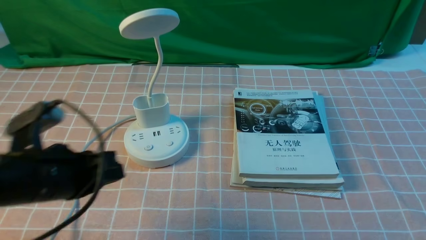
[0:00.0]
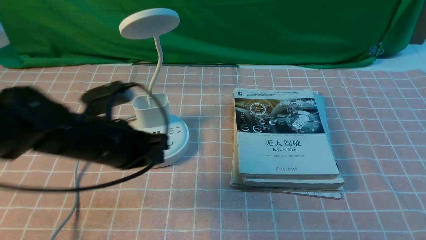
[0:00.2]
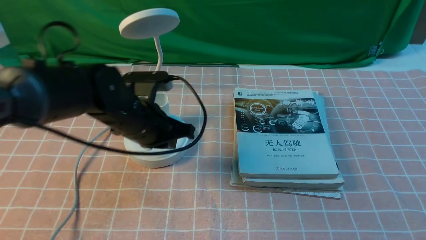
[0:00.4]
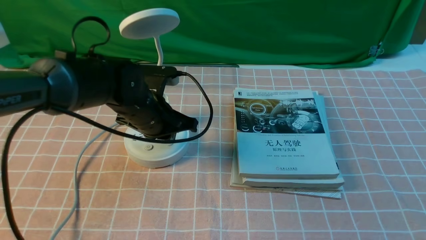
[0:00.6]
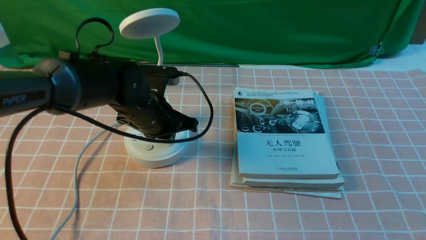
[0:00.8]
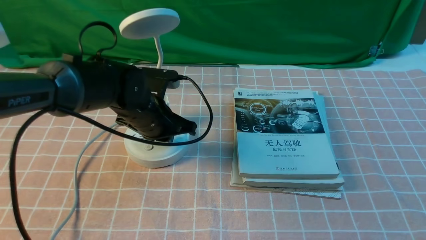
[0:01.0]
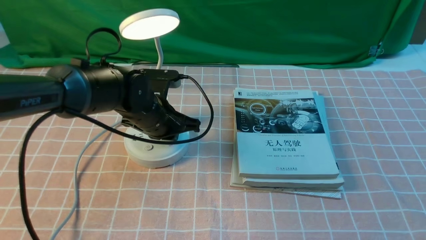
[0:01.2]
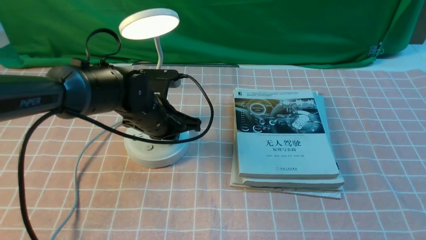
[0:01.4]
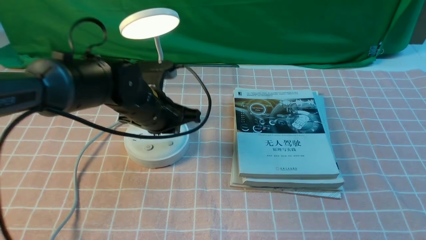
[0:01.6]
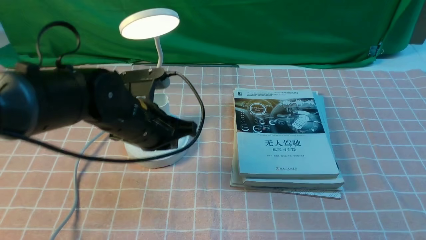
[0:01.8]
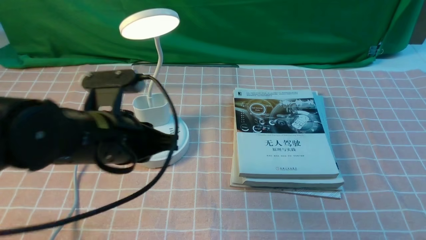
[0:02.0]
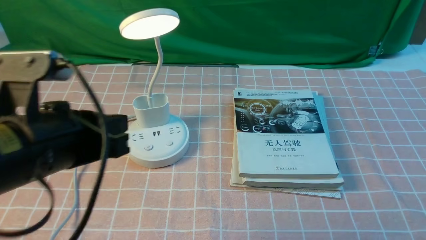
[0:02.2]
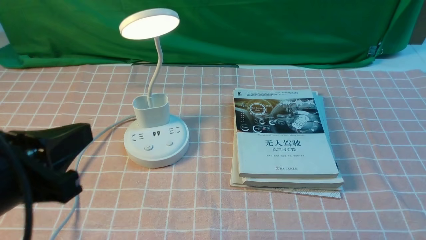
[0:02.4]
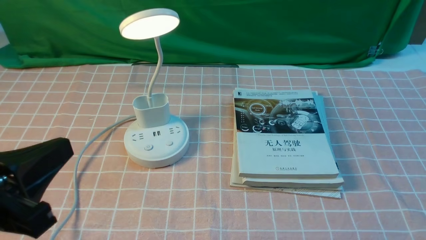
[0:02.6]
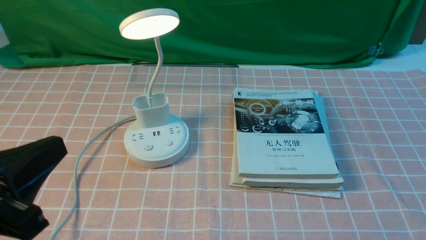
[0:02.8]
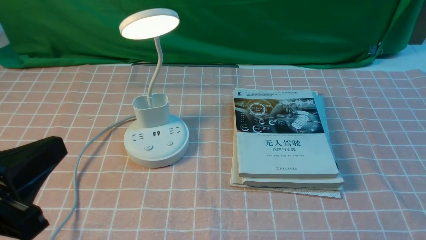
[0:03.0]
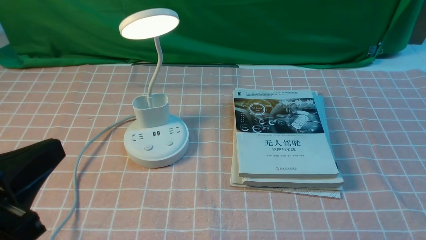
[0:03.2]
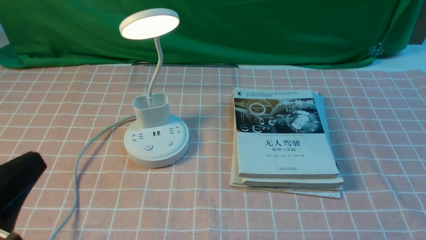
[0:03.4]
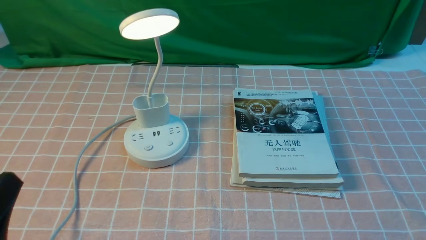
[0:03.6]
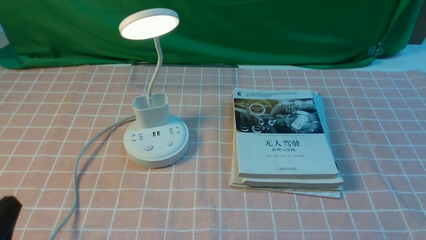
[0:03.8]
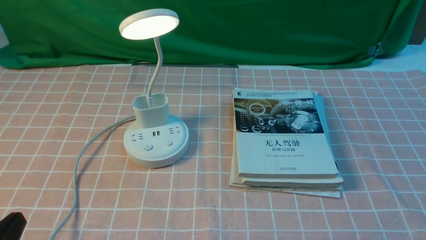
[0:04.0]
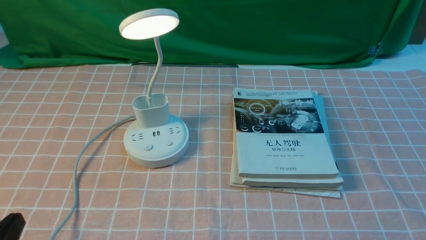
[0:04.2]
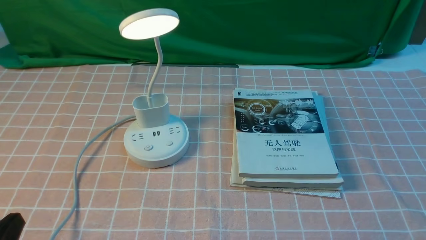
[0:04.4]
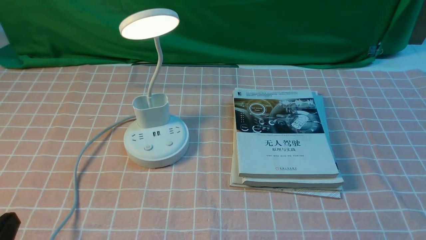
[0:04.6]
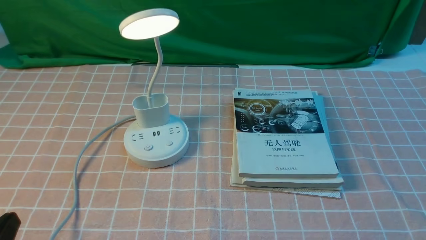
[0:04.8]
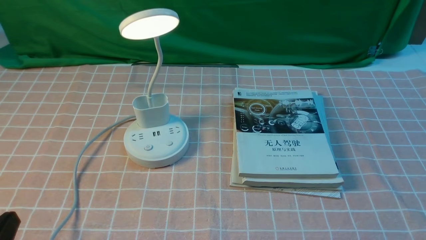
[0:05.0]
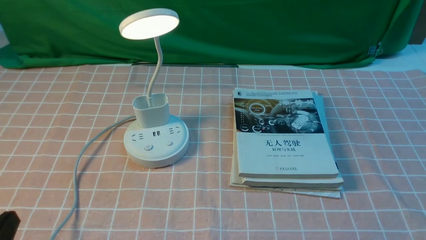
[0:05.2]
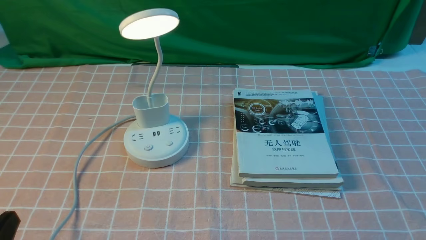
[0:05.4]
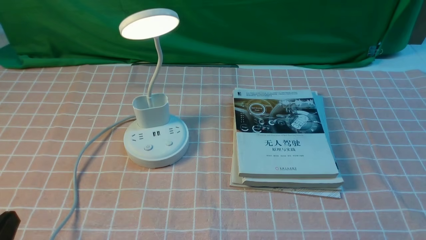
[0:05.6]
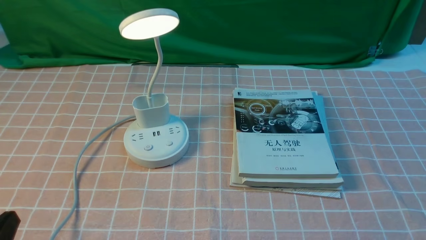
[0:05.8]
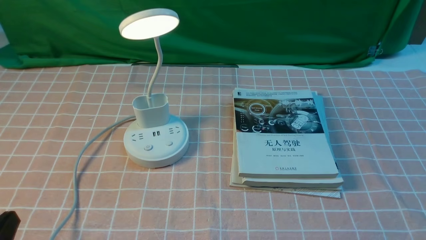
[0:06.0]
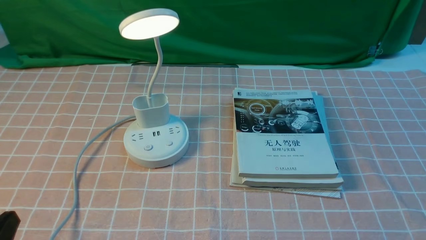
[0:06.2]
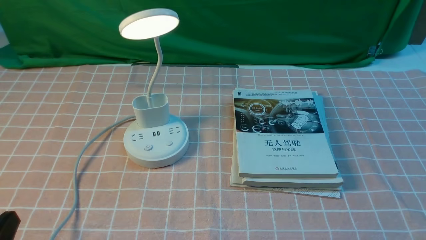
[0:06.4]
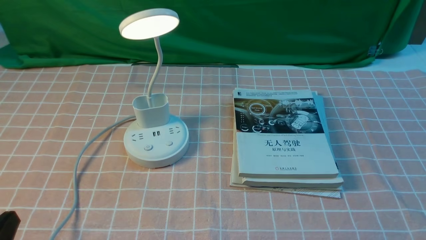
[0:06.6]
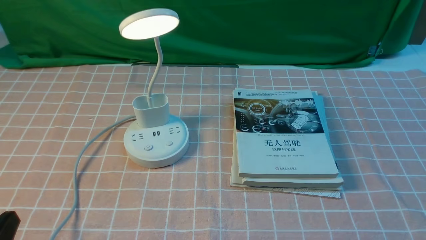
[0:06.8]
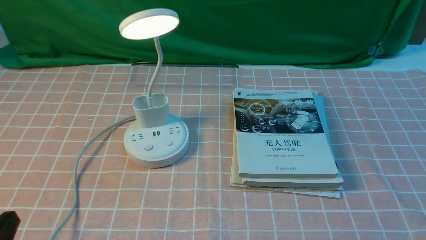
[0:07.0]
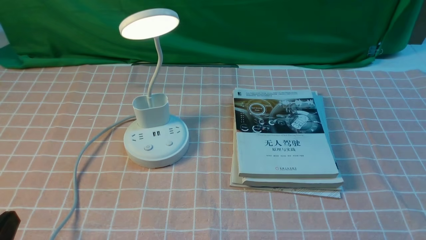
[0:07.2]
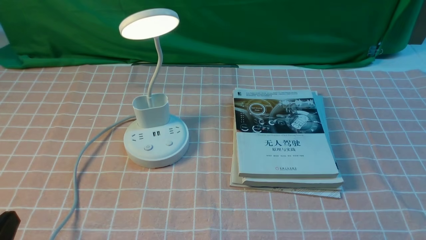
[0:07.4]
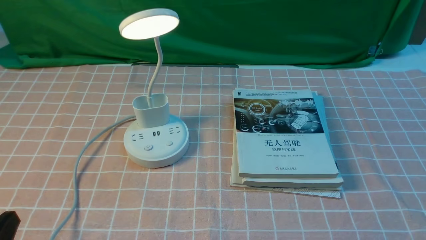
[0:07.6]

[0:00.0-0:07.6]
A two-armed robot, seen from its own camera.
0:00.0 to 0:01.6: The left gripper is displaced forward and to the right by some 15 cm.
0:01.6 to 0:03.0: The left gripper shifts some 30 cm backward and to the left.
0:03.0 to 0:04.6: The left gripper heads downward, covering approximately 10 cm.
0:04.6 to 0:07.6: Both grippers stay put.

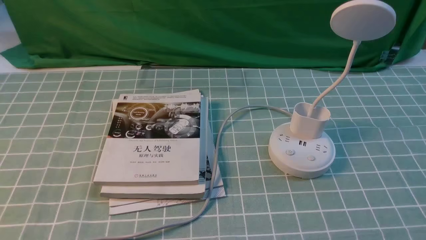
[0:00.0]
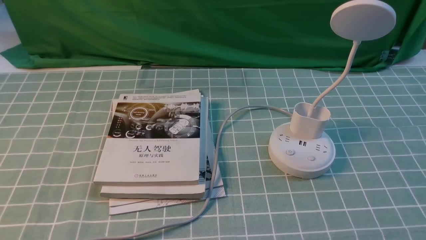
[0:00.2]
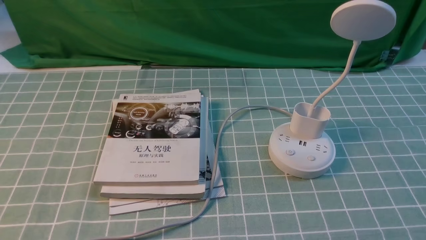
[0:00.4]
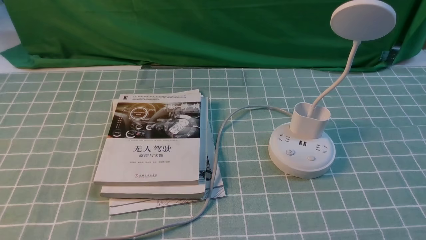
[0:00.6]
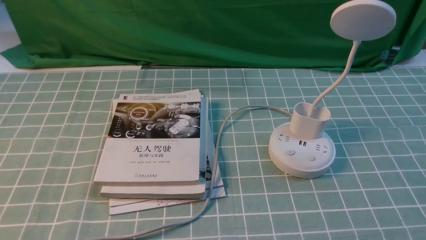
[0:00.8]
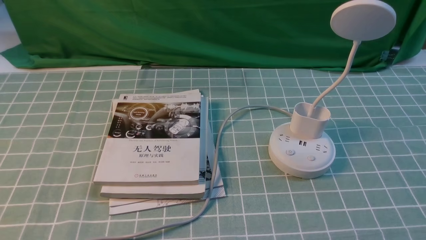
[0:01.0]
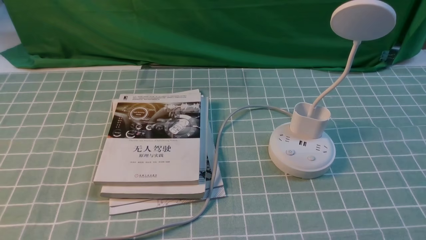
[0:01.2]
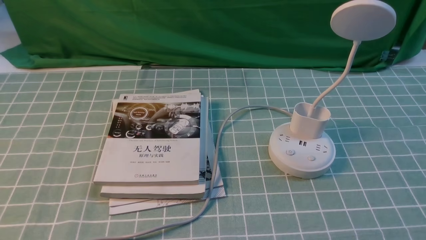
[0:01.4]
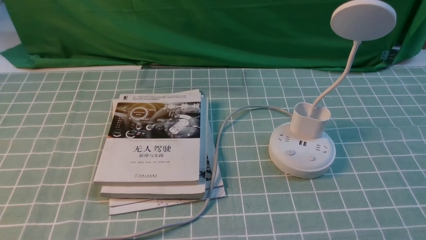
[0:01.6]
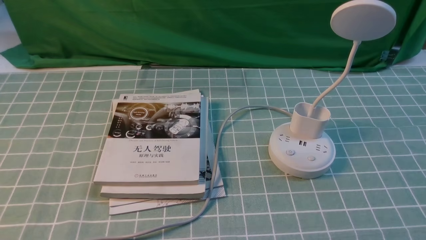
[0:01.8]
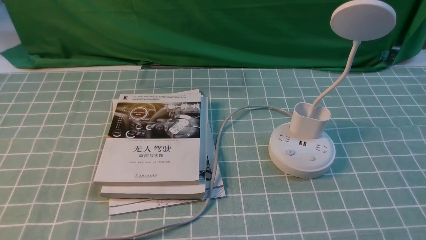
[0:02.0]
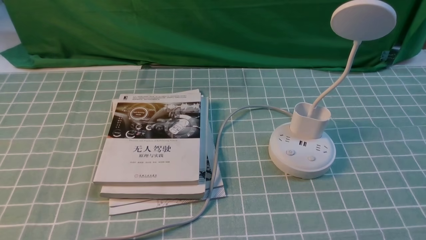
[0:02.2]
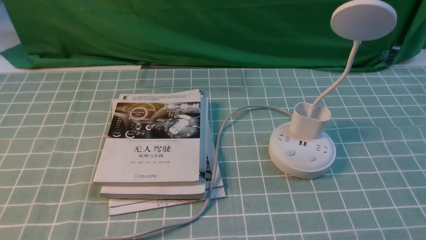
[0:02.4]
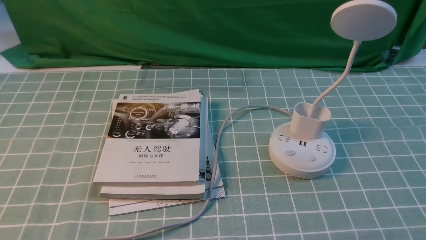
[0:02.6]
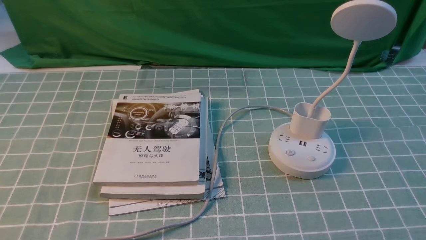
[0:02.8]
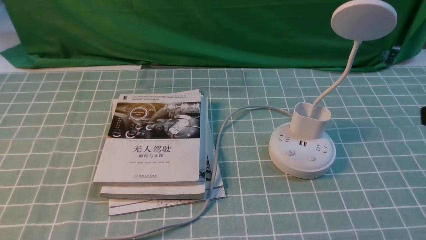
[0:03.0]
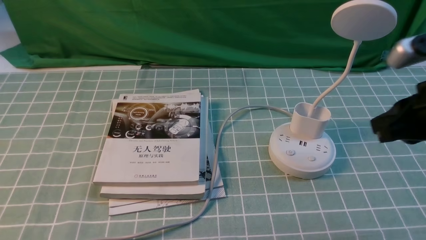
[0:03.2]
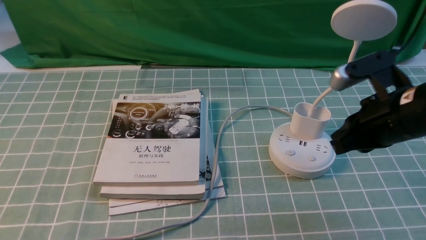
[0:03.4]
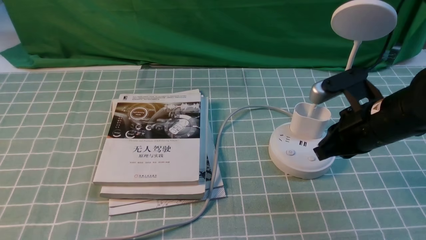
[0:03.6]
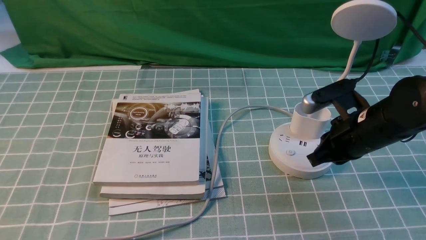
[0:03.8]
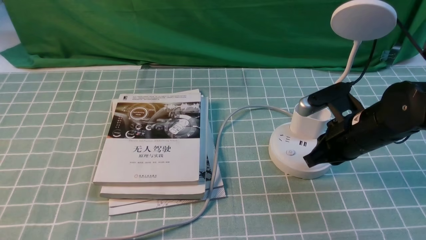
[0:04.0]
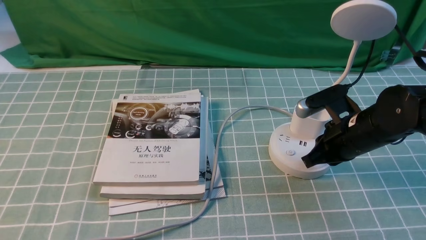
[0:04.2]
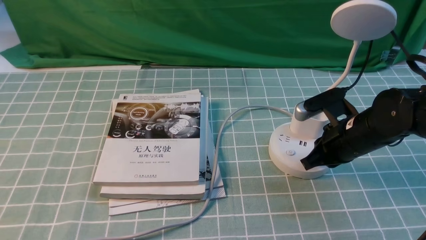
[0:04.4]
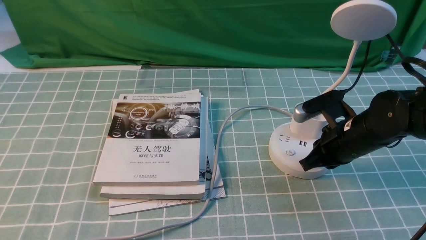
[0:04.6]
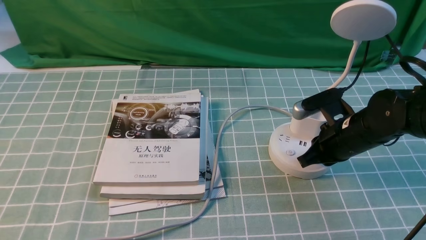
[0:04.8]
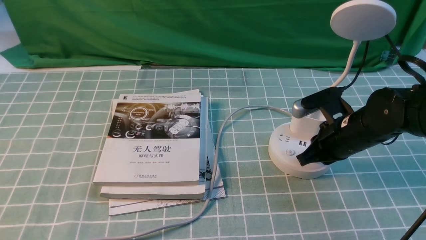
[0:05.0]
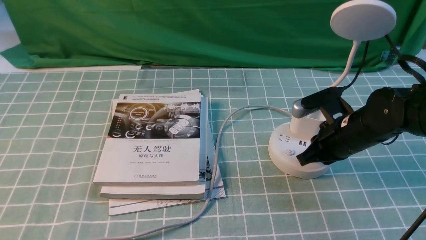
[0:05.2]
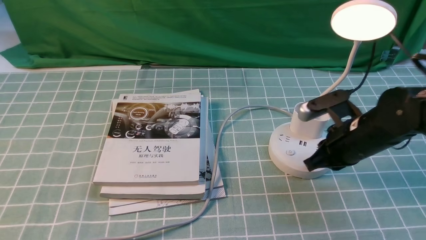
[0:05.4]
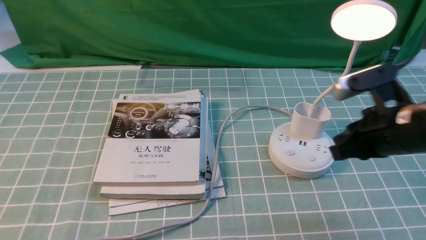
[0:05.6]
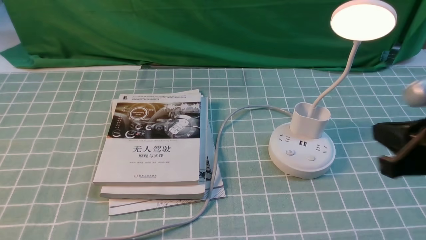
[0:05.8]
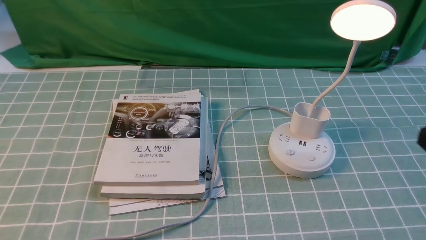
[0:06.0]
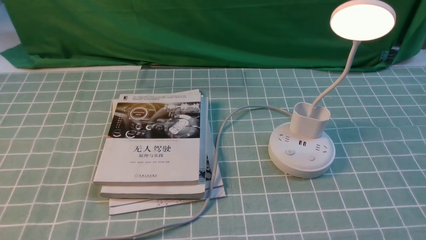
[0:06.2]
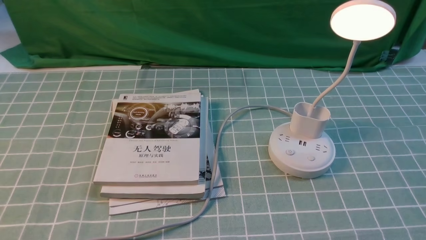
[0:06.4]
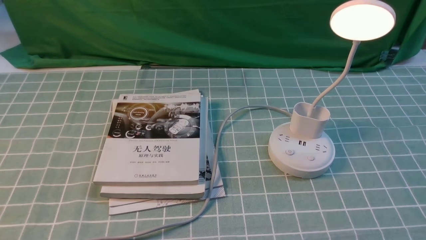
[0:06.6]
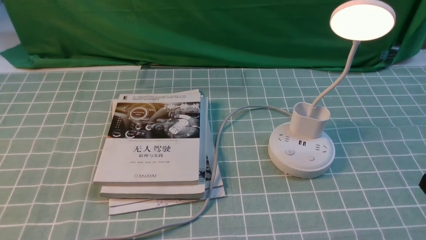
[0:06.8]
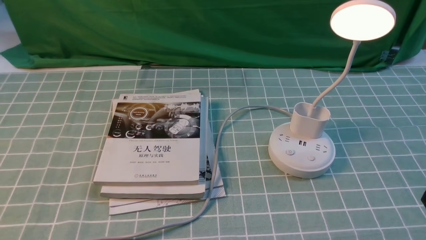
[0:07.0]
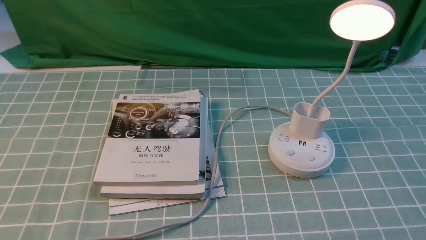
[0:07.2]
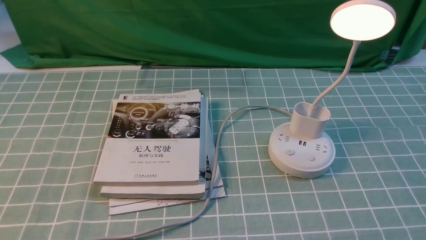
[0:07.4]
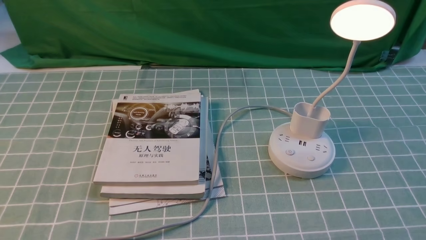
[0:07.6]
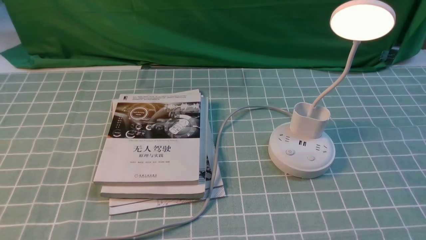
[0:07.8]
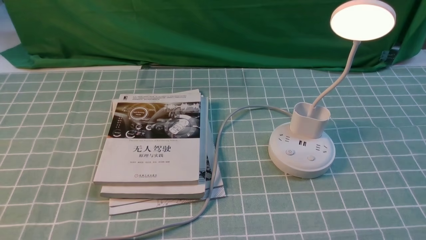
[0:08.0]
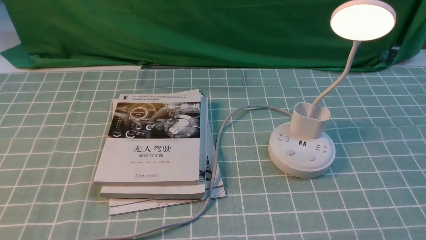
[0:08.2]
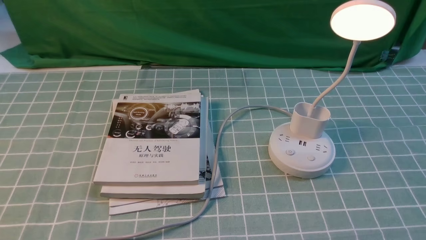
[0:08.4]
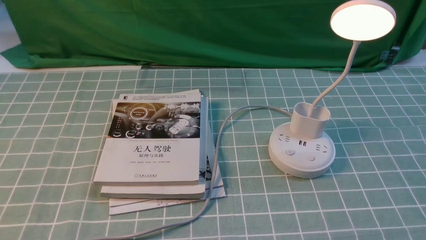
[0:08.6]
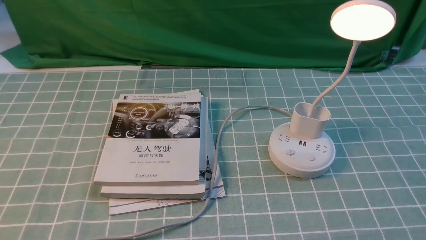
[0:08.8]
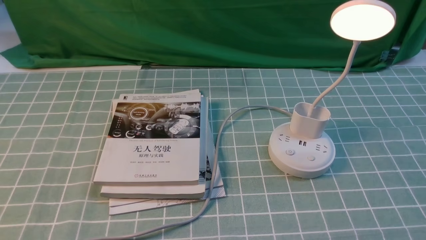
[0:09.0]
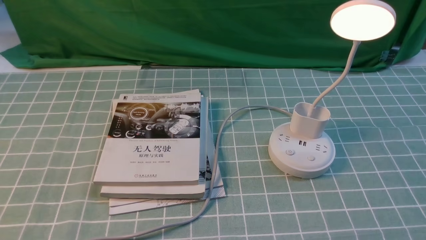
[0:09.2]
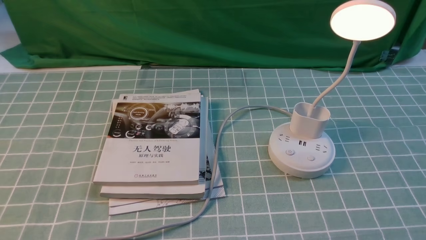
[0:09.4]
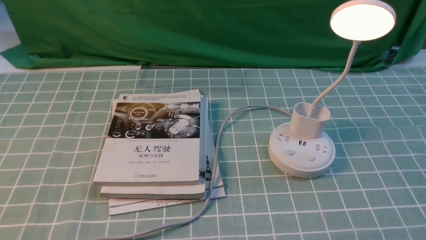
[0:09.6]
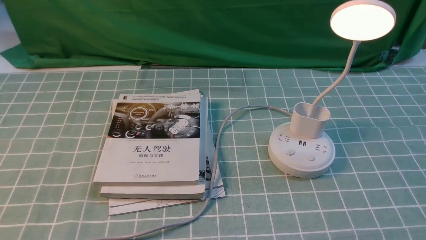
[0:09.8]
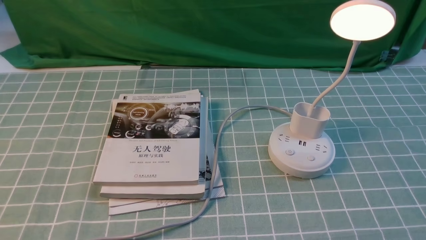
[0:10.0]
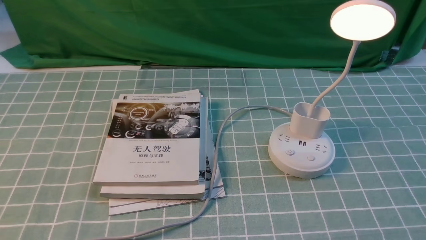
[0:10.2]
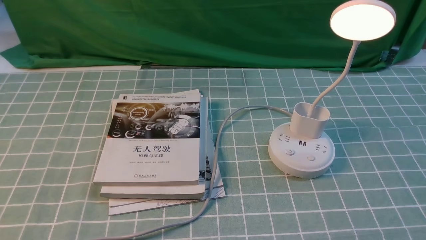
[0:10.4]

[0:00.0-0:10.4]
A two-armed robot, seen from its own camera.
Step, 0:00.0 to 0:05.6: use the right arm to press the button switch on the lamp holder.
0:00.0 to 0:01.4: The two grippers keep their place.
0:03.0 to 0:04.4: The right gripper shifts about 25 cm downward, forward and to the left.
0:04.4 to 0:06.0: The right gripper shifts about 25 cm backward and upward.
0:09.0 to 0:10.4: Neither gripper changes place.
